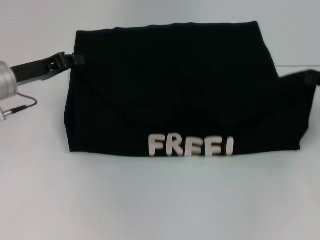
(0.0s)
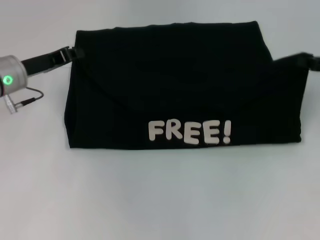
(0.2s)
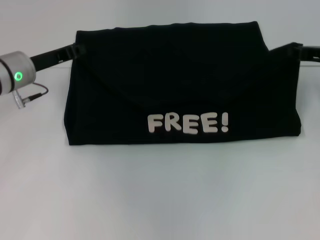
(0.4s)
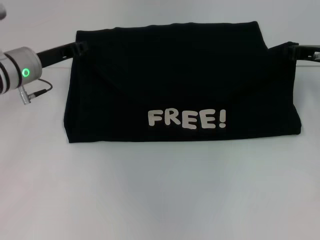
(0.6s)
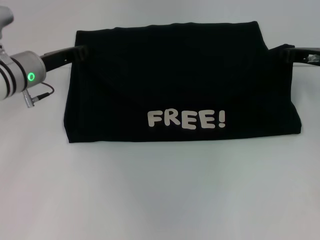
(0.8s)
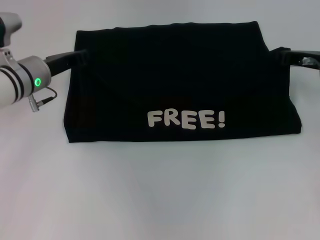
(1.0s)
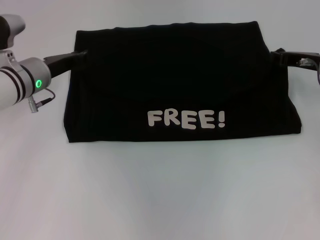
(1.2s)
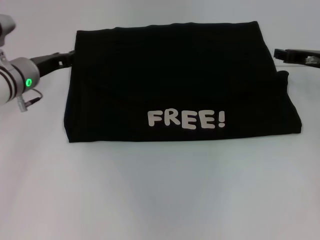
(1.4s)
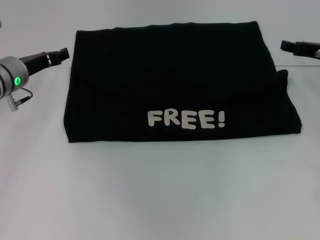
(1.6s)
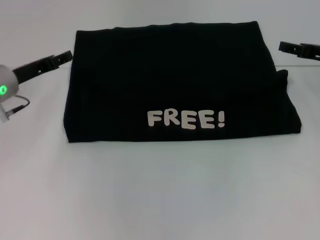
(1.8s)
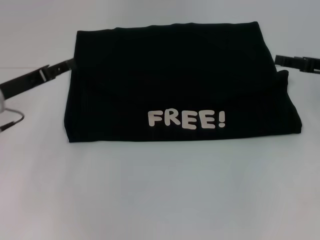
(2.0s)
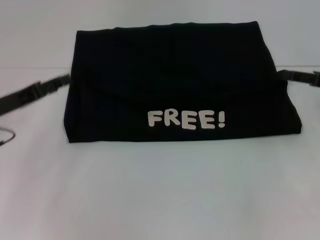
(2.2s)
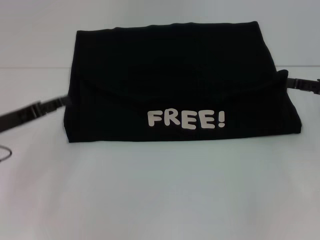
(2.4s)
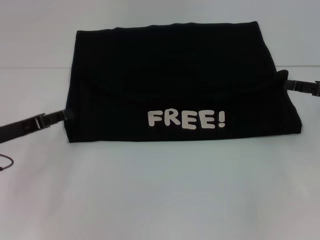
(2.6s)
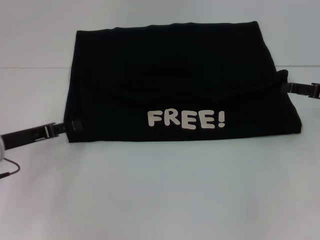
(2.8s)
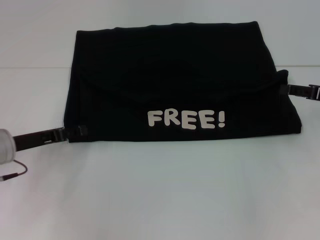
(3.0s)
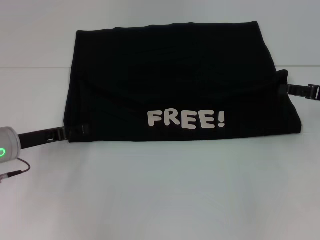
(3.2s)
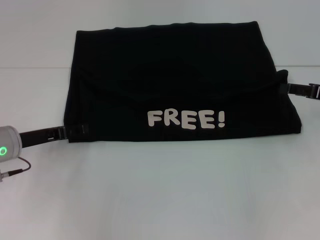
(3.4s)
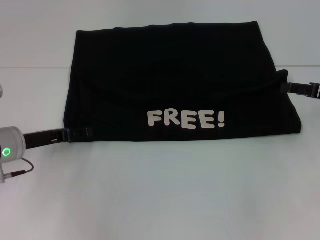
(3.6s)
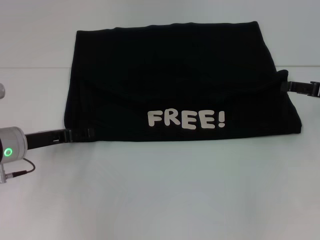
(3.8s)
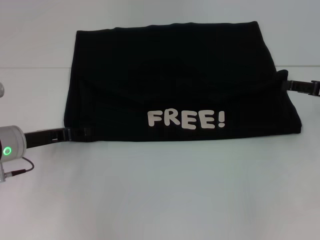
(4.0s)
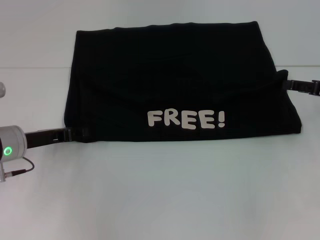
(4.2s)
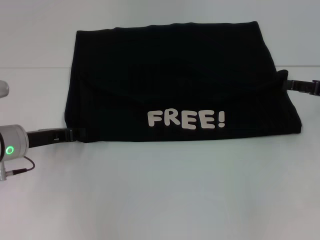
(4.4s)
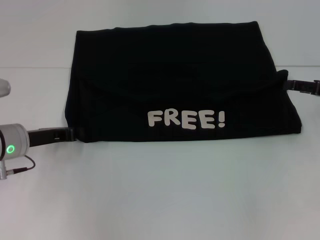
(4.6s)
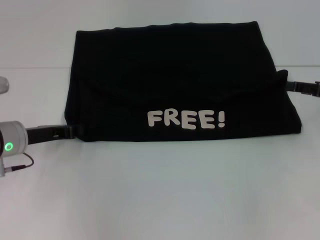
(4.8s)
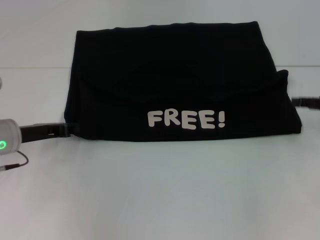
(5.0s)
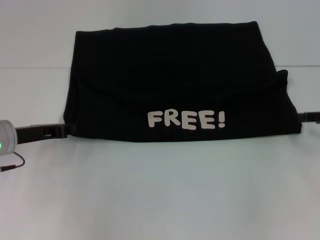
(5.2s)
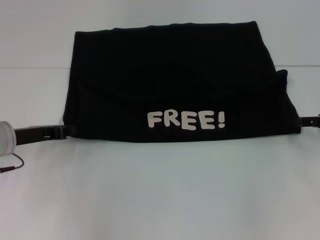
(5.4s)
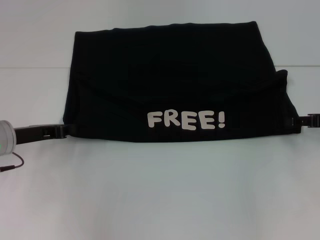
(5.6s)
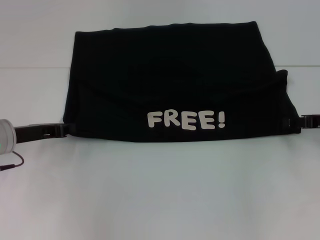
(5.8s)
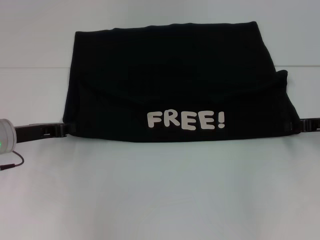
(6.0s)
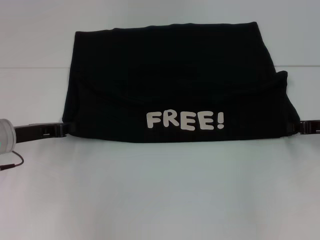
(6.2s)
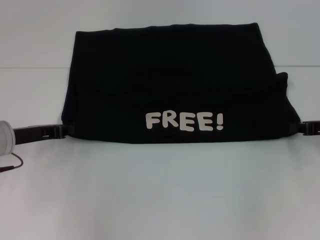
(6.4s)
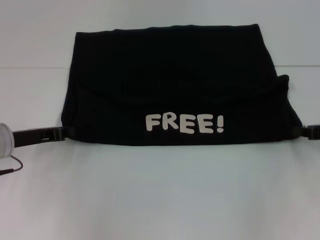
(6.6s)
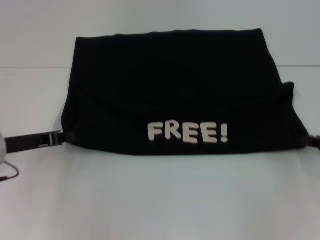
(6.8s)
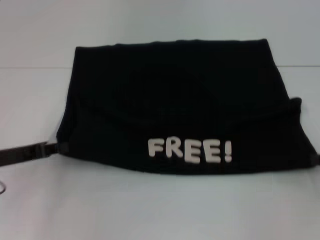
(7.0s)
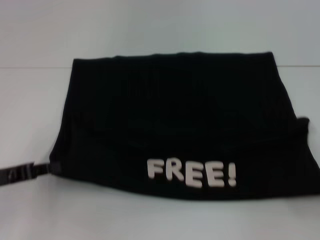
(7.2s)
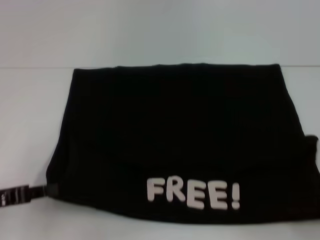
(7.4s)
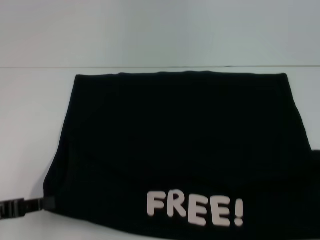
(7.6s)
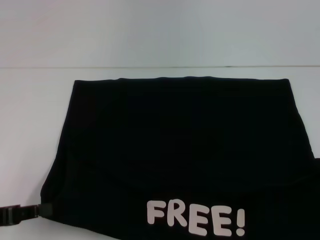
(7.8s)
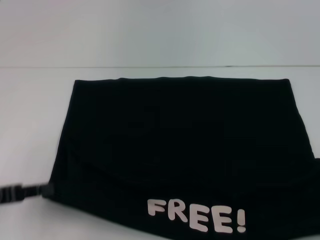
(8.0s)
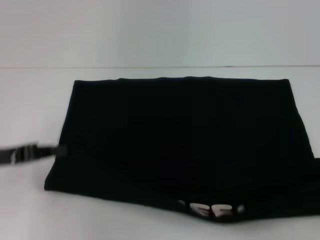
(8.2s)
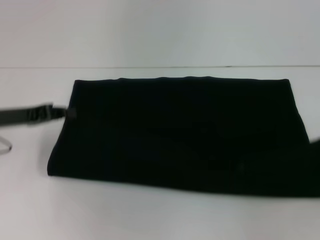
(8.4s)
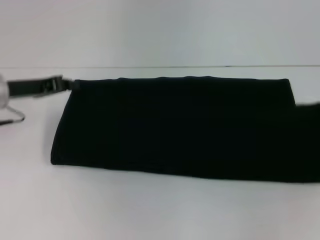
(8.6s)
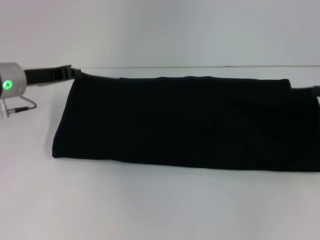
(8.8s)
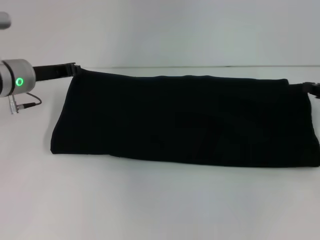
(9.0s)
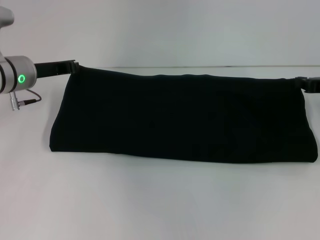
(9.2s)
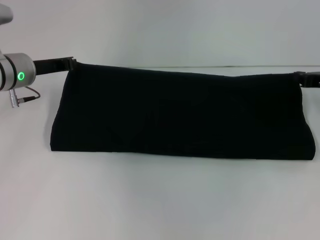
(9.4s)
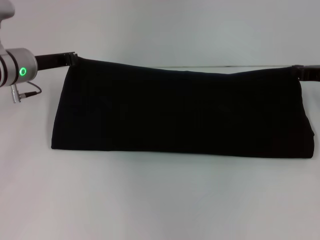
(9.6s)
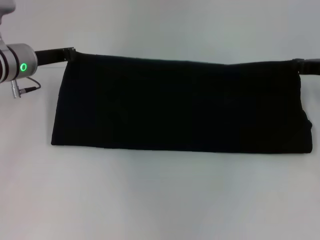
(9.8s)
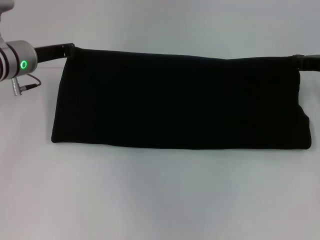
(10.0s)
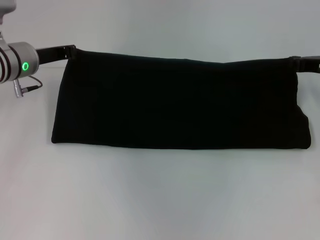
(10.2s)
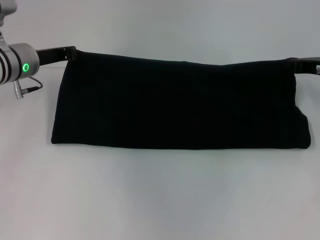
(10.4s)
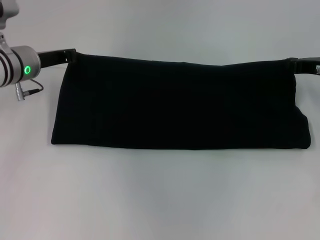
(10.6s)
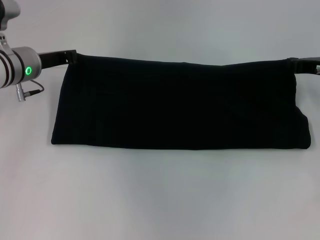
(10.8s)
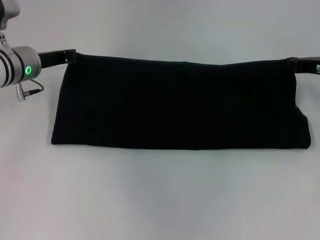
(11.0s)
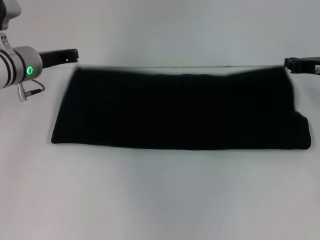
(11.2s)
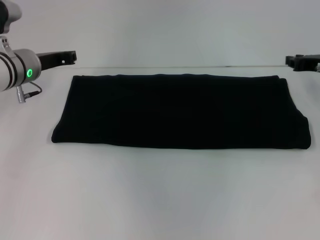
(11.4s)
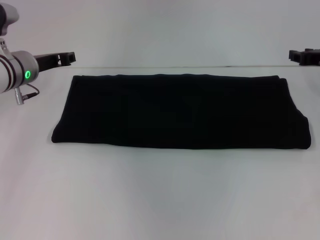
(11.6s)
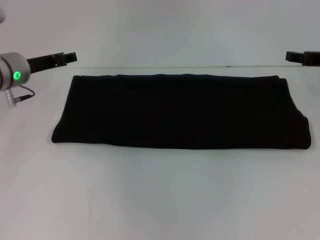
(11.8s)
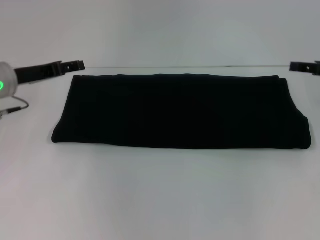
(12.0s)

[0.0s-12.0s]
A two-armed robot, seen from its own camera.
Step, 0.0s to 2.0s: Fold the clothes with your left hand.
Step, 0.0s to 2.0s: Fold the clothes with your right hand.
Step, 2.2s to 7.6s: Pull the clothes with your left hand.
Step, 2.2s to 7.6s: Pull the clothes with your right hand.
Step, 7.8s to 11.8s: Fold the clothes with your right hand.
0.0s to 1.6s: The left gripper shifts by some 5 cm. Meanwhile the right gripper heads forward and to the left, covering roughly 10 cm.
1.6s to 3.0s: The two grippers go about 10 cm backward. The right gripper opens up.
3.0s to 4.4s: The grippers stay close to where they were, moving slightly.
4.4s to 6.0s: The left gripper closes up.
6.0s to 7.6s: The left gripper heads backward, covering some 15 cm; the right gripper heads backward and to the right, covering roughly 20 cm, and closes.
7.6s to 9.0s: The grippers both shift forward by approximately 20 cm.
9.0s to 10.4s: The right gripper moves some 5 cm.
10.4s to 12.0s: The right gripper opens, while the left gripper opens up.

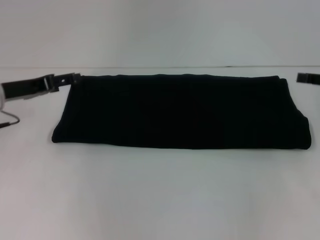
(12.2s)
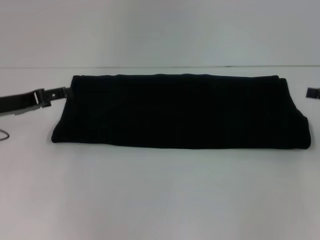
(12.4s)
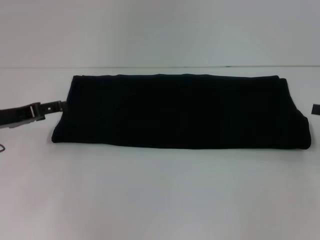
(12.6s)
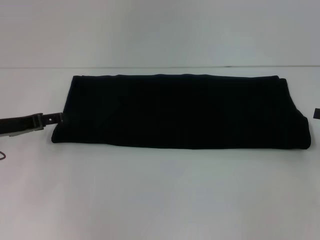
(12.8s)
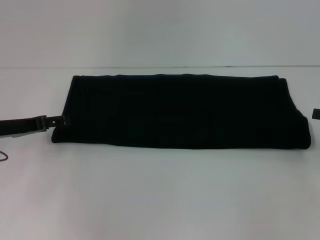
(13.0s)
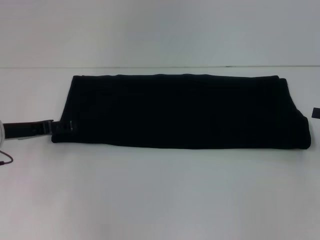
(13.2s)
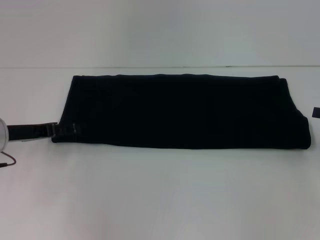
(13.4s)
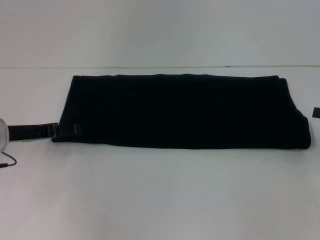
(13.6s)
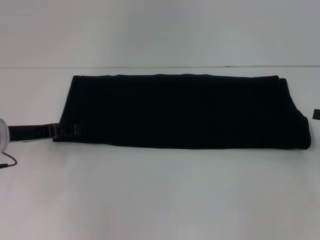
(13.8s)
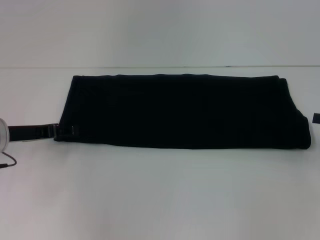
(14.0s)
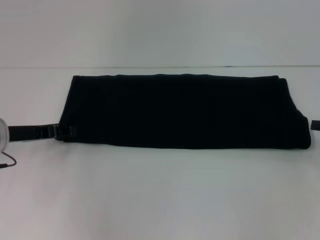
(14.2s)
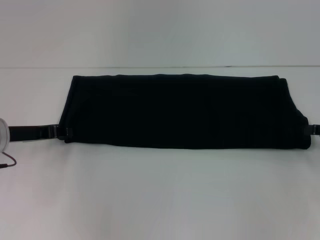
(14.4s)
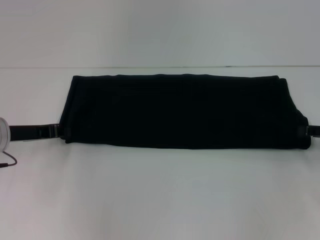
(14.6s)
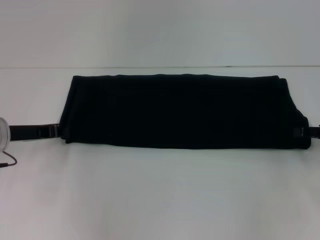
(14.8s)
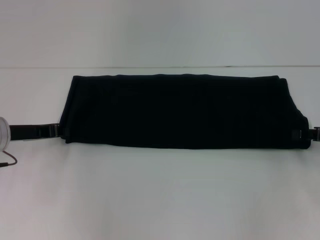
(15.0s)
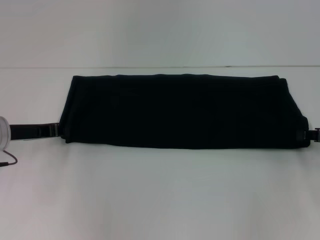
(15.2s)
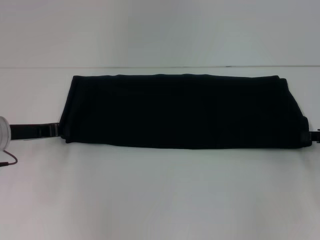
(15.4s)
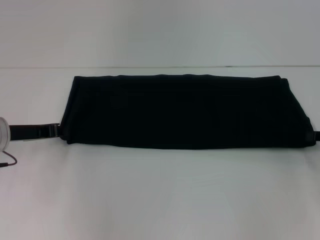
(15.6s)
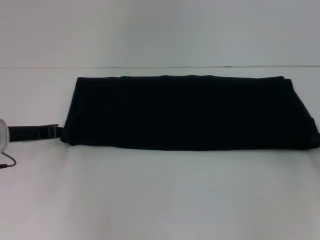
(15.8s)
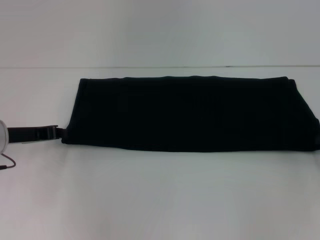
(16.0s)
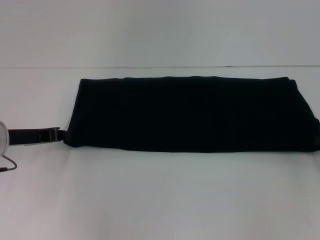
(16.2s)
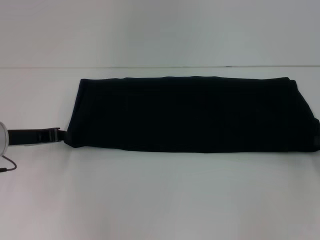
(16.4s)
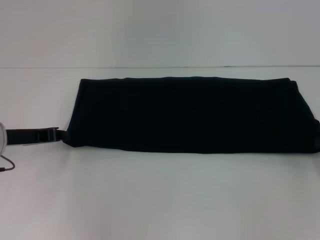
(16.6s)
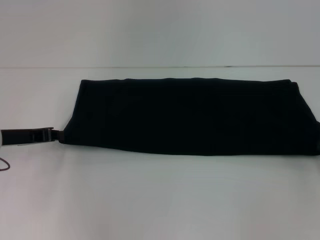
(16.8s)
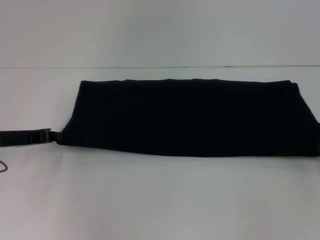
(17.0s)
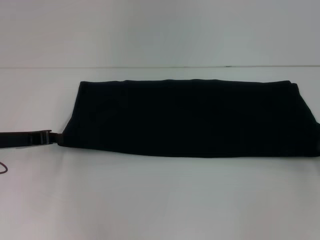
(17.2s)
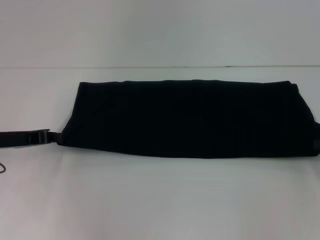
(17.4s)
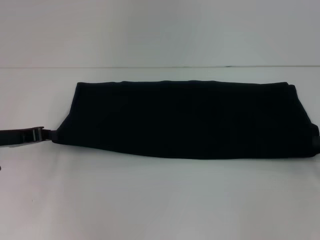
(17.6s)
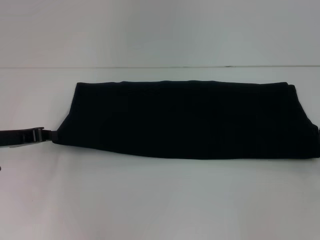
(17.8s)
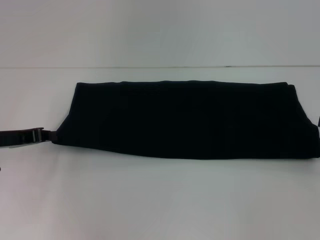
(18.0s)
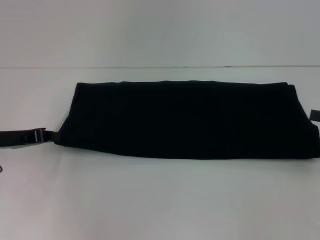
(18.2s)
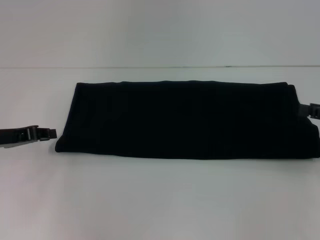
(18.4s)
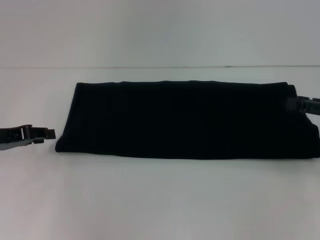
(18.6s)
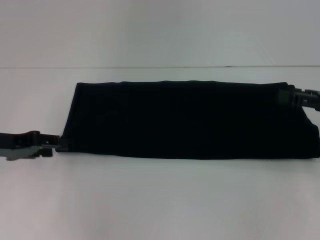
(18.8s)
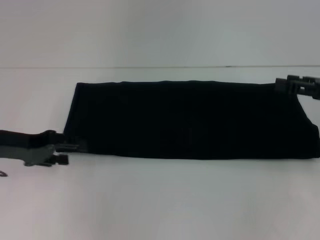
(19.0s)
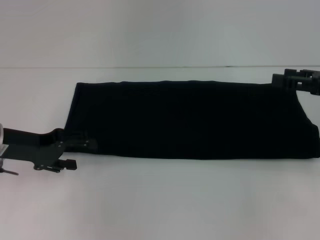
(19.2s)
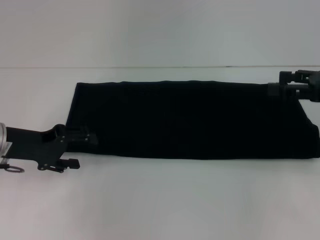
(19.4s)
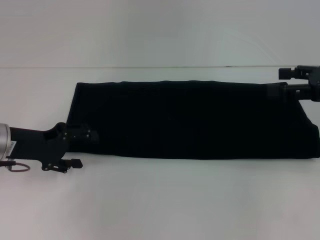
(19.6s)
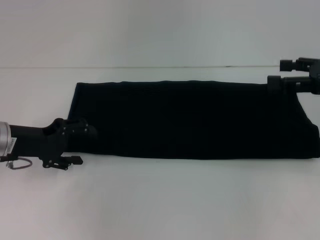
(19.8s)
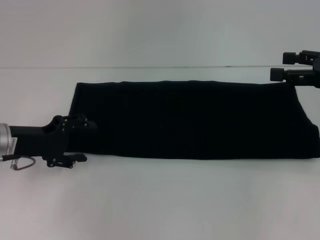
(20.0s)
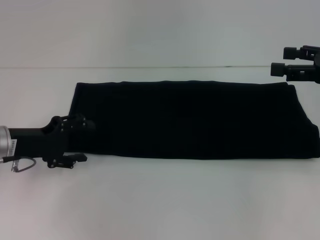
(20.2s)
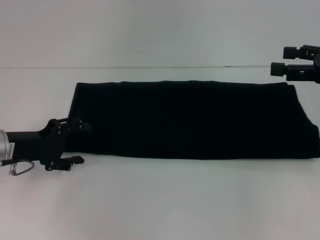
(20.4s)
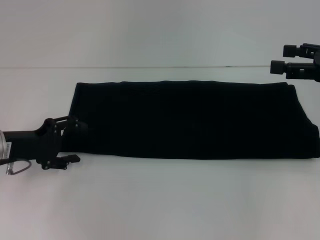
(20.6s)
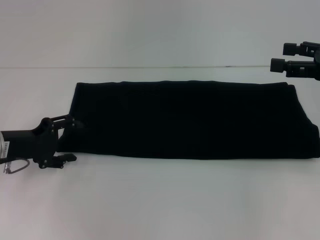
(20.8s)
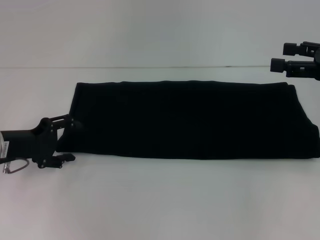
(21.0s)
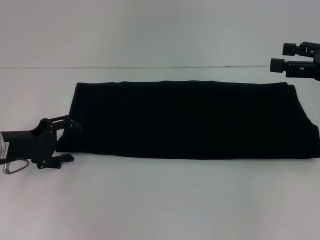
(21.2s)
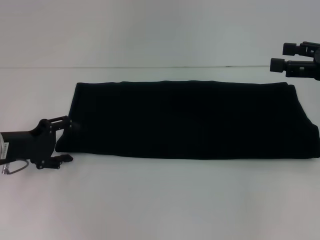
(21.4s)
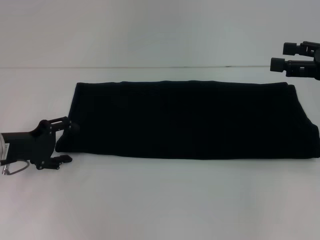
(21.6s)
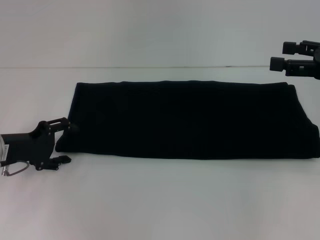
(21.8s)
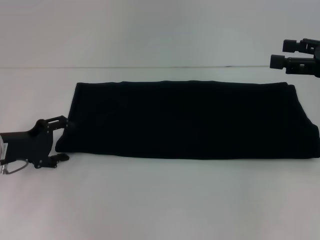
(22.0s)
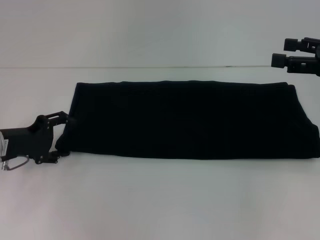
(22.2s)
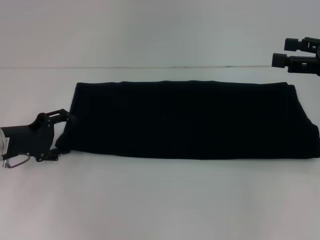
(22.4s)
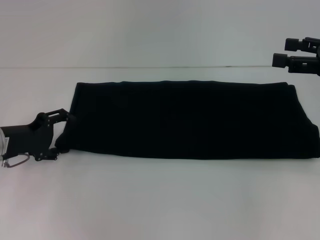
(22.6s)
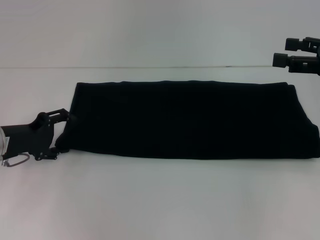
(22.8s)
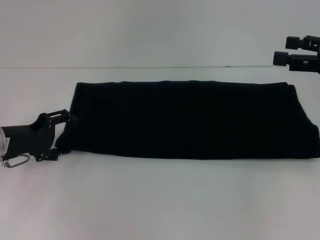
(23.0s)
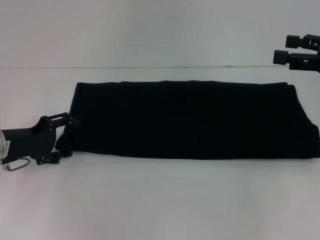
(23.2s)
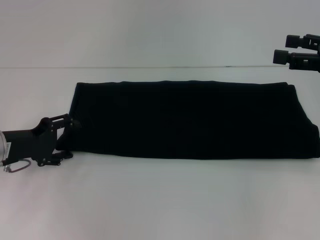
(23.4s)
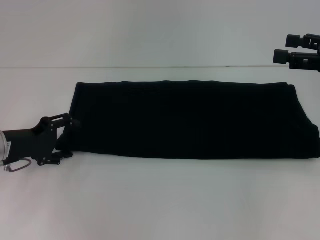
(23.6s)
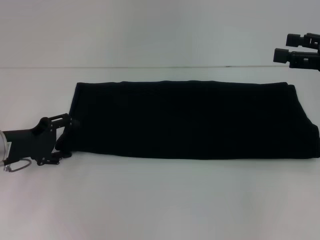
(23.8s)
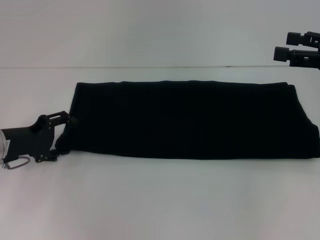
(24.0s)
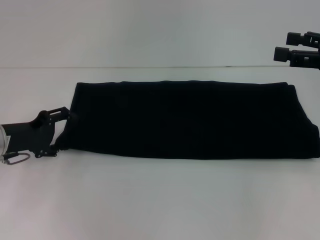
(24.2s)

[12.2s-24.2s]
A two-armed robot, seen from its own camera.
13.8s to 15.2s: The left gripper closes up.
15.2s to 16.6s: The grippers stay close to where they were, moving slightly.
16.6s to 18.2s: The right gripper opens.
18.2s to 19.8s: The left gripper opens up, while the right gripper moves upward, to the left and forward, some 10 cm, and opens.
19.8s to 22.6s: There are only small adjustments of the grippers.
22.6s to 24.2s: The two grippers keep their place.
